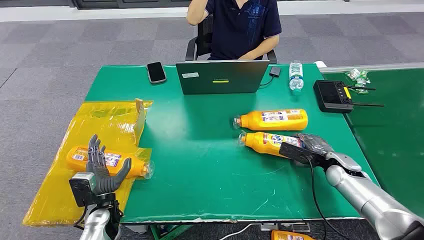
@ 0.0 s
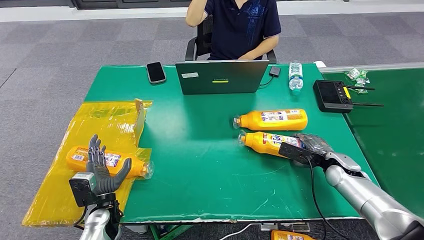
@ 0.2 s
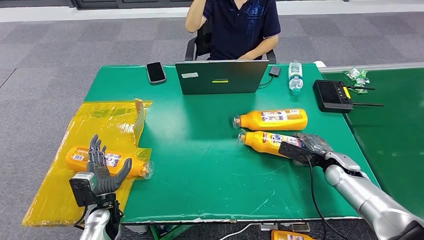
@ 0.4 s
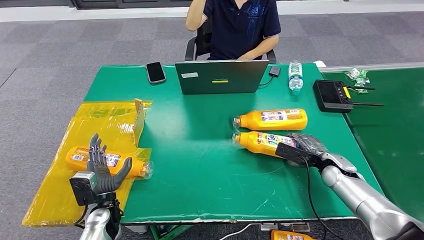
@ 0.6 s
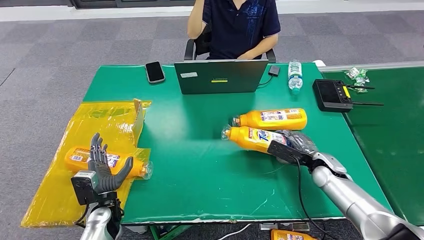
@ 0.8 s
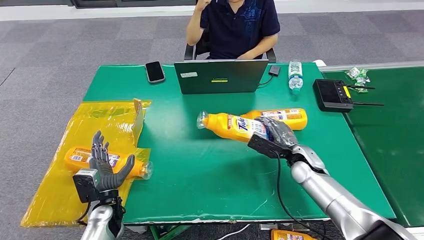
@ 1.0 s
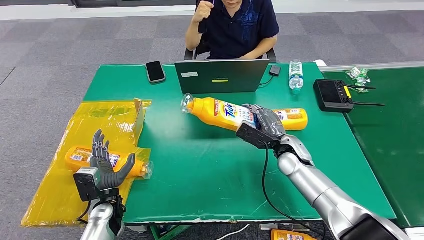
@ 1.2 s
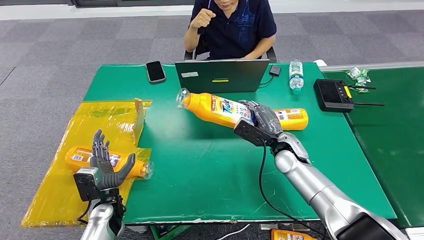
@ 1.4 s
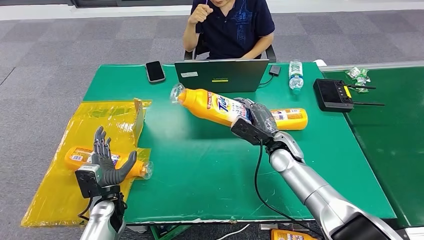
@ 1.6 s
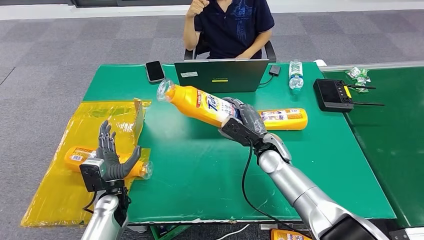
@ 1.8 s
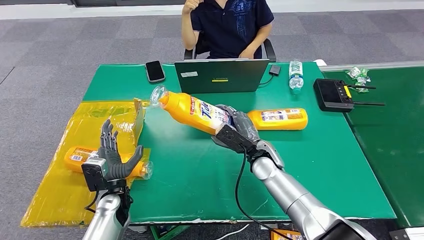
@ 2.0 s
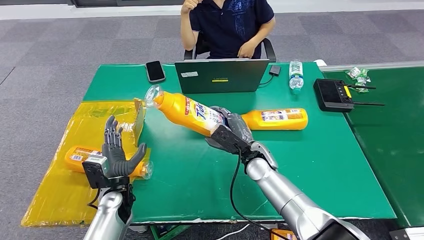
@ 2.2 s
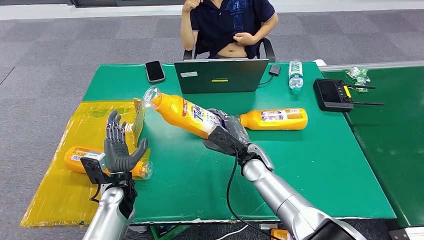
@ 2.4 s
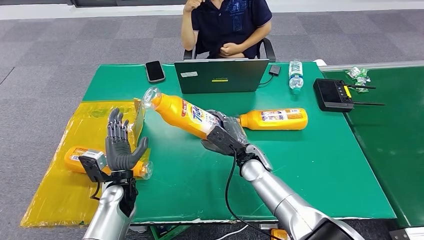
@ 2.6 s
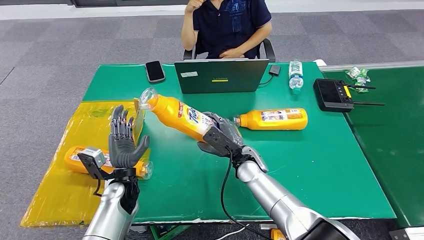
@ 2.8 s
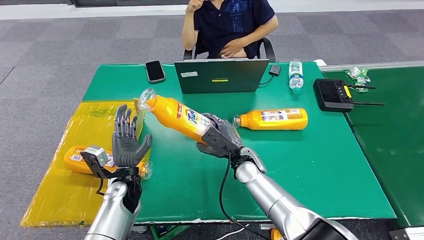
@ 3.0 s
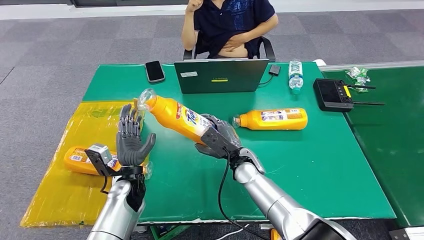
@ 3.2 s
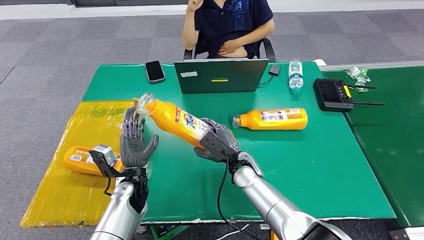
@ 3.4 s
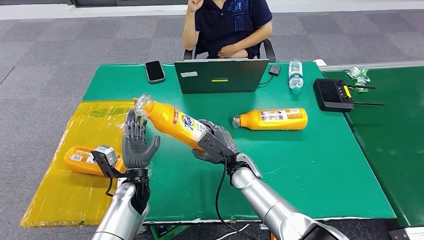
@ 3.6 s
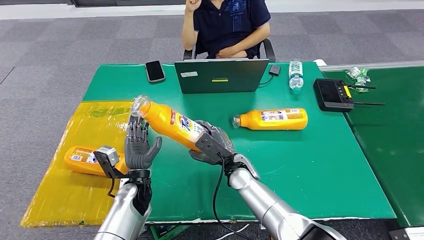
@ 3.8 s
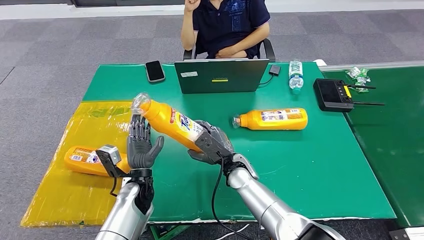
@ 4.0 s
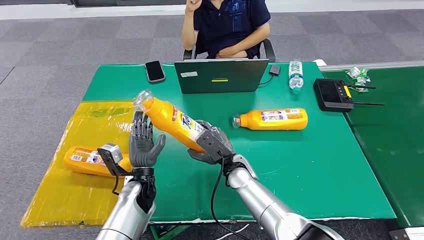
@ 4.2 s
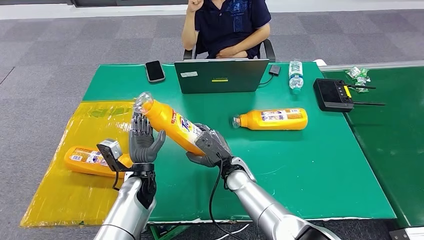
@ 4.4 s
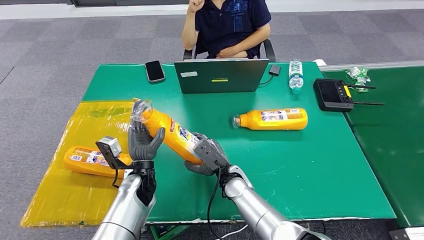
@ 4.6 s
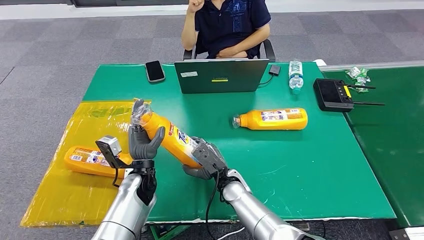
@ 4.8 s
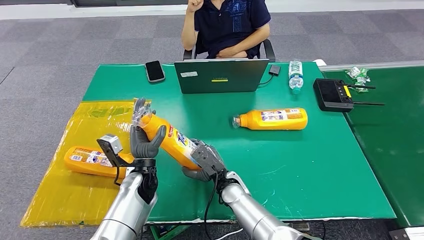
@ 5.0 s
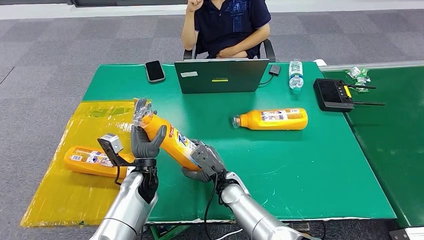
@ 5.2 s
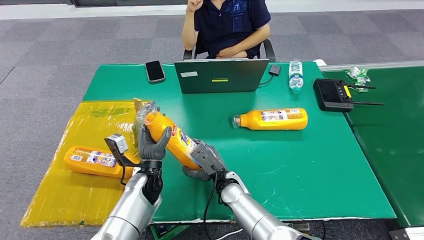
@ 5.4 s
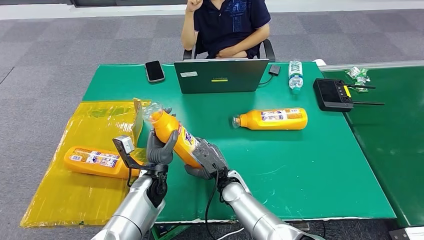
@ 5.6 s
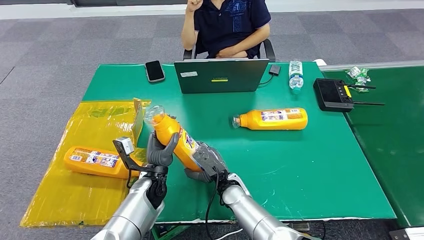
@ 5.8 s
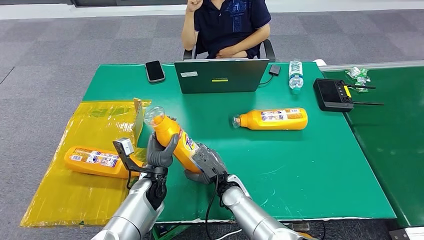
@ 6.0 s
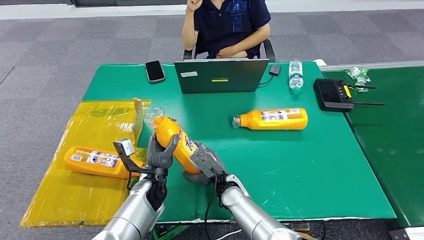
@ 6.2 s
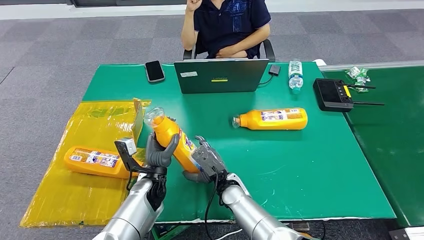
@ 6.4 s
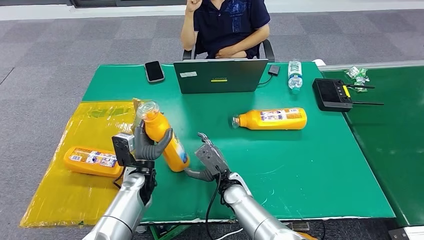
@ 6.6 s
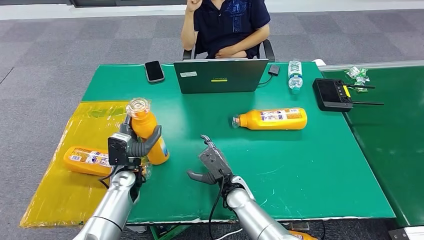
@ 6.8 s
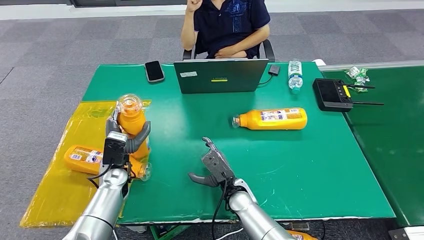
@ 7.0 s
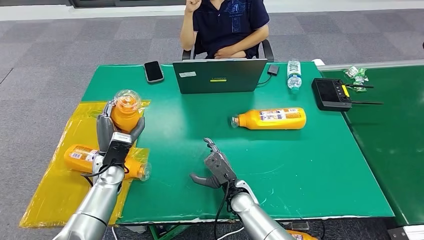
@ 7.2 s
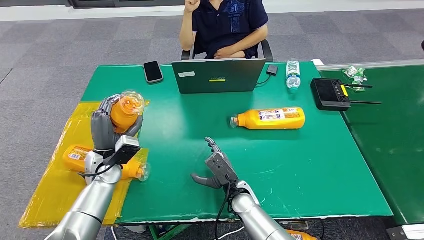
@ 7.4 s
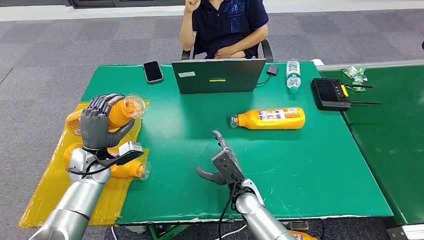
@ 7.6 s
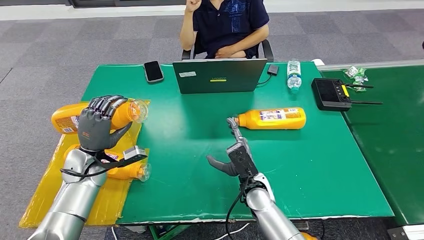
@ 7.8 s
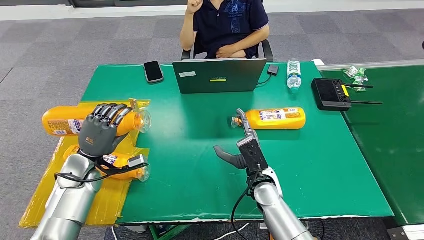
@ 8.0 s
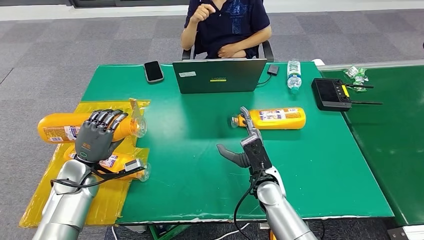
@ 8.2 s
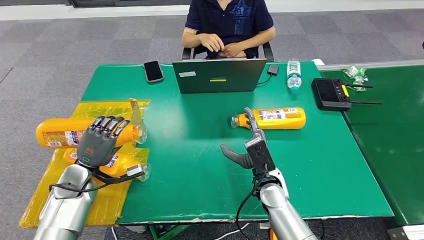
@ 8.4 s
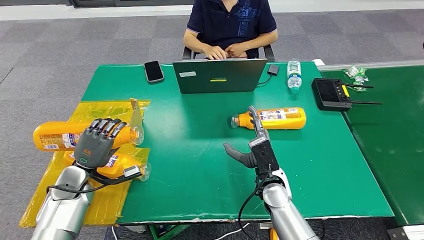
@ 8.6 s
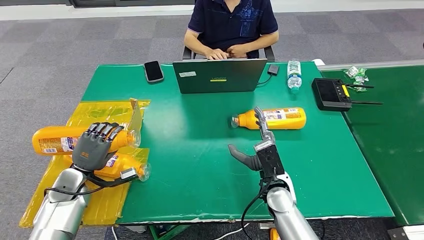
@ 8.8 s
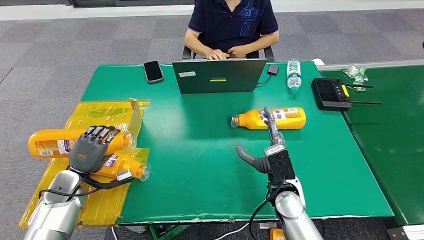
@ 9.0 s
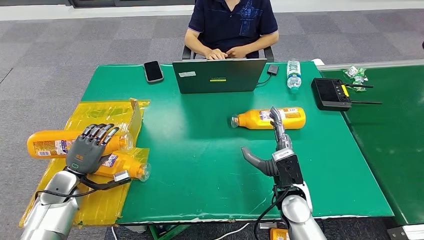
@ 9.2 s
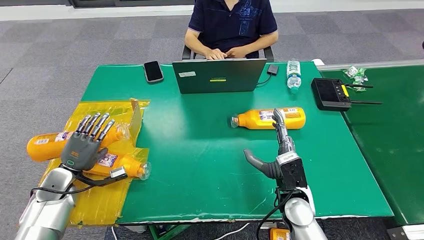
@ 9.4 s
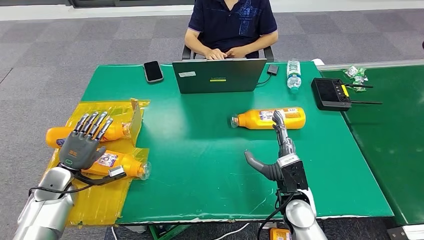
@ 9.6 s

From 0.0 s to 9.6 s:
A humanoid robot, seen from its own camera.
Step, from 0.0 s to 2.2 s: Pick up the bottle from the table.
Step, from 2.4 s to 9.6 s: Turn the bottle to the front side.
From 3.2 s to 4.8 s: The right hand shifts by roughly 10 cm.
From 4.8 s to 6.4 s: There are only small adjustments of the hands.
From 8.0 s to 9.6 s: The right hand moves to the right and backward, approximately 10 cm. The left hand shifts roughly 10 cm to the left.
